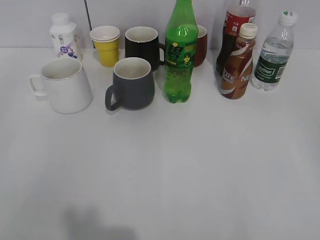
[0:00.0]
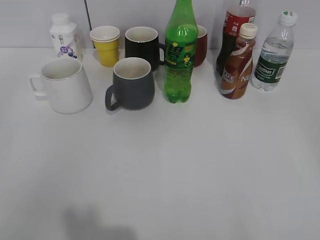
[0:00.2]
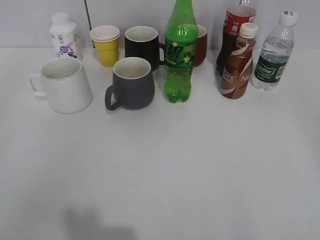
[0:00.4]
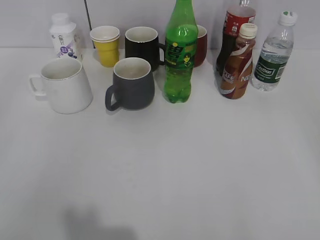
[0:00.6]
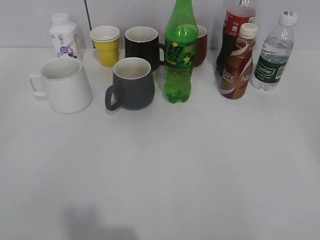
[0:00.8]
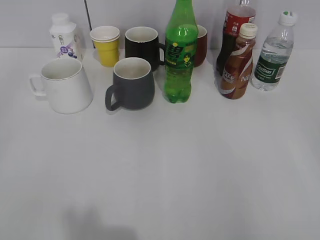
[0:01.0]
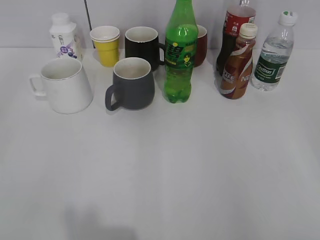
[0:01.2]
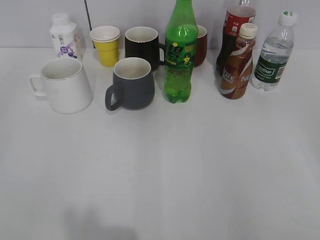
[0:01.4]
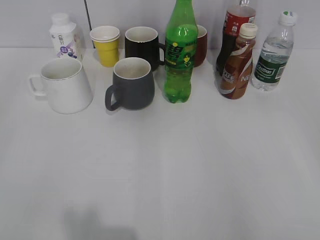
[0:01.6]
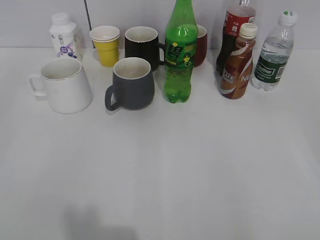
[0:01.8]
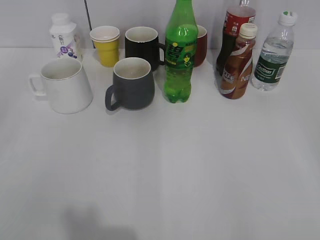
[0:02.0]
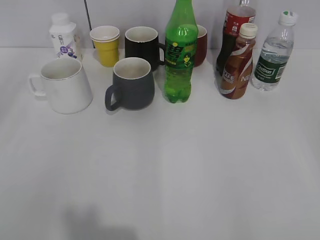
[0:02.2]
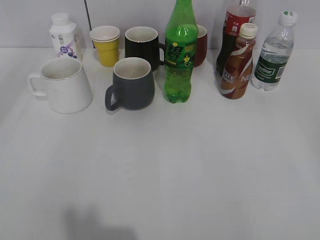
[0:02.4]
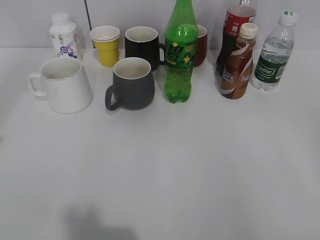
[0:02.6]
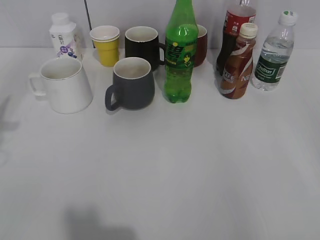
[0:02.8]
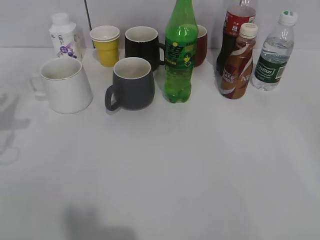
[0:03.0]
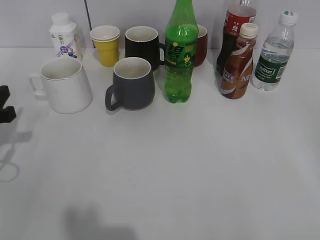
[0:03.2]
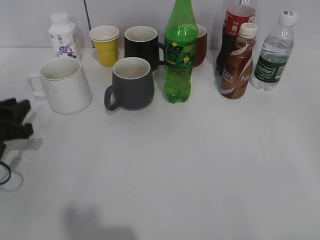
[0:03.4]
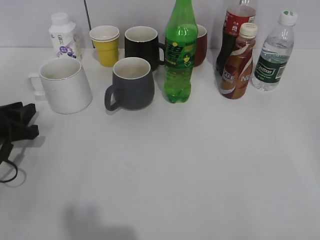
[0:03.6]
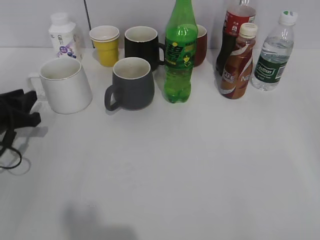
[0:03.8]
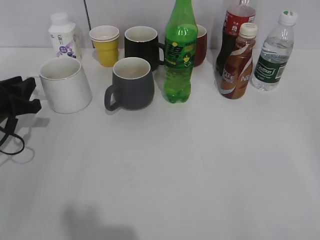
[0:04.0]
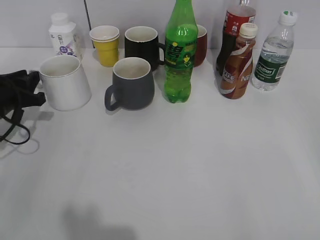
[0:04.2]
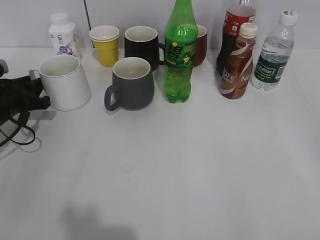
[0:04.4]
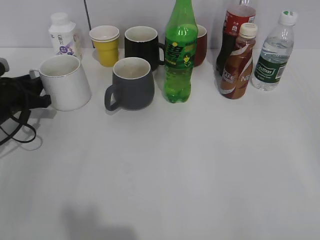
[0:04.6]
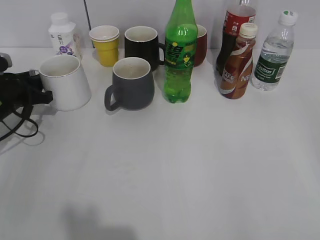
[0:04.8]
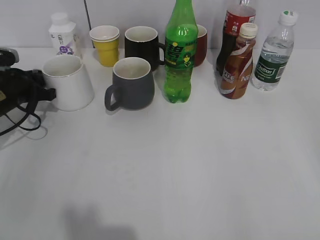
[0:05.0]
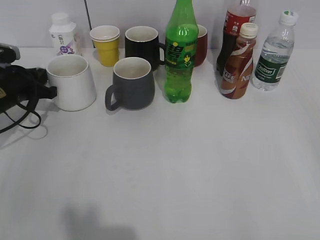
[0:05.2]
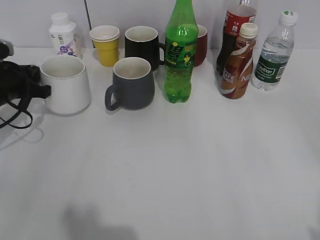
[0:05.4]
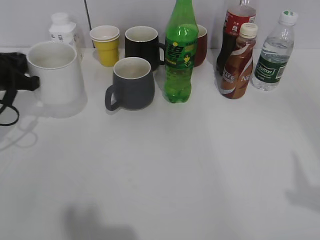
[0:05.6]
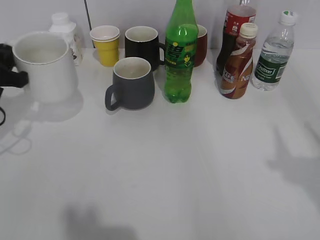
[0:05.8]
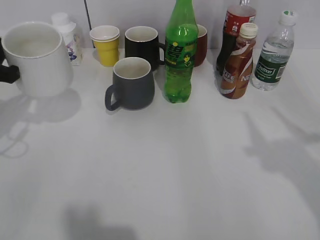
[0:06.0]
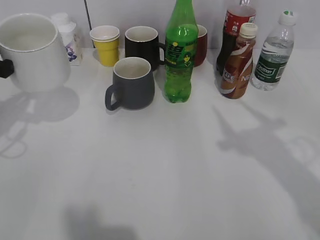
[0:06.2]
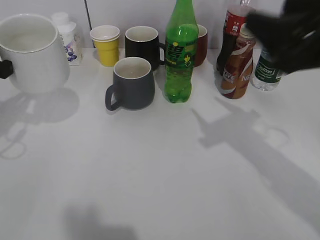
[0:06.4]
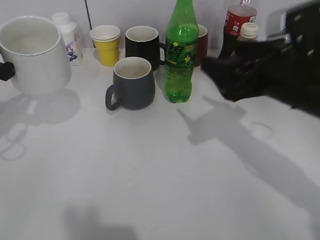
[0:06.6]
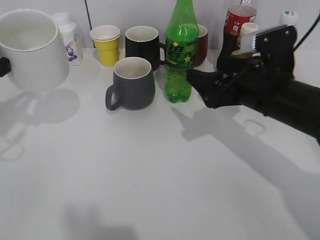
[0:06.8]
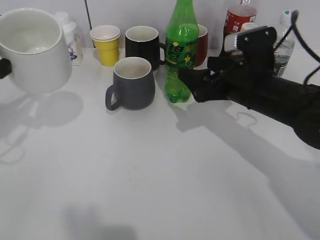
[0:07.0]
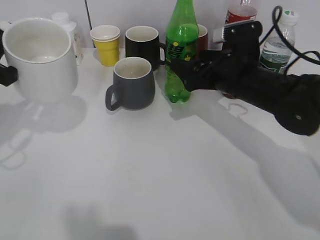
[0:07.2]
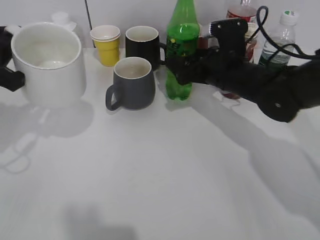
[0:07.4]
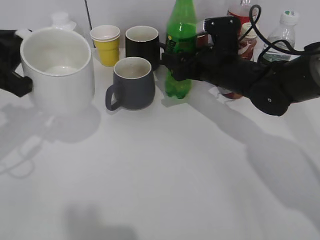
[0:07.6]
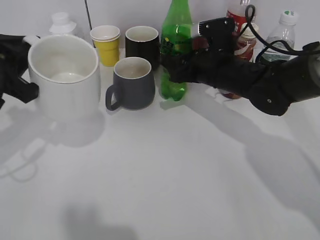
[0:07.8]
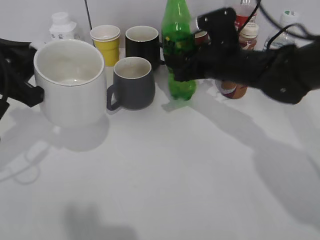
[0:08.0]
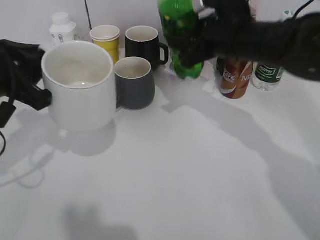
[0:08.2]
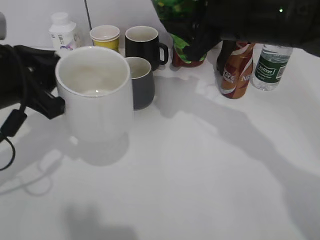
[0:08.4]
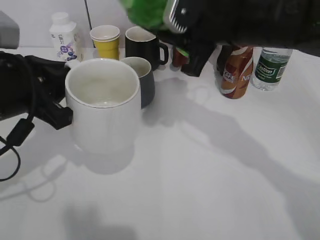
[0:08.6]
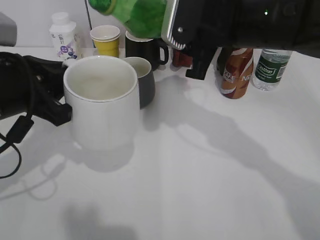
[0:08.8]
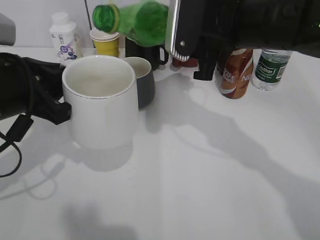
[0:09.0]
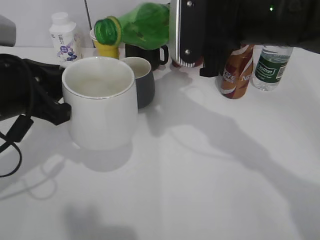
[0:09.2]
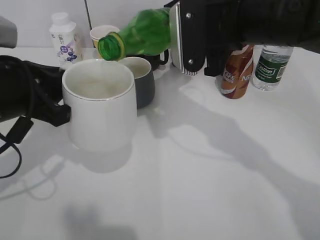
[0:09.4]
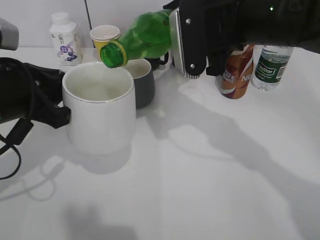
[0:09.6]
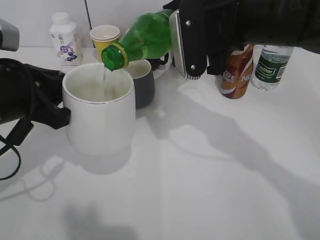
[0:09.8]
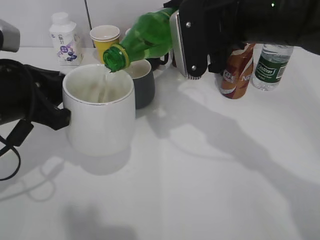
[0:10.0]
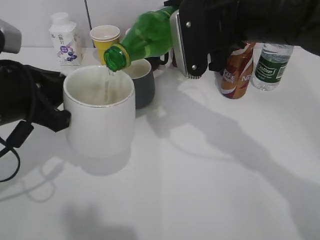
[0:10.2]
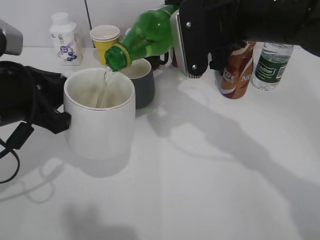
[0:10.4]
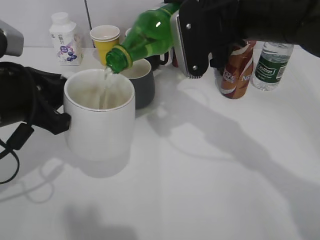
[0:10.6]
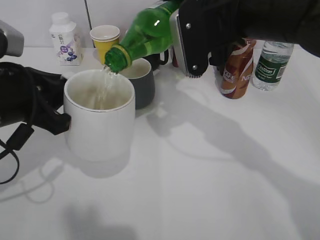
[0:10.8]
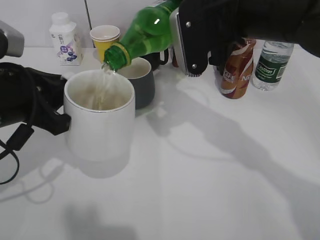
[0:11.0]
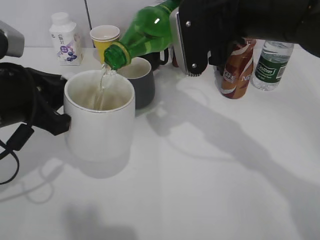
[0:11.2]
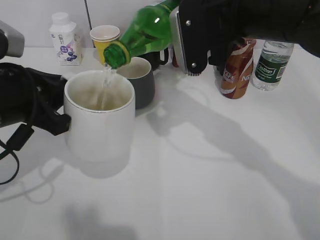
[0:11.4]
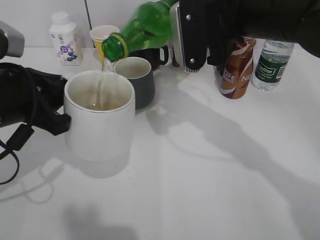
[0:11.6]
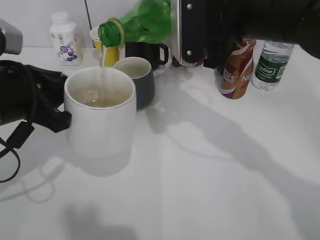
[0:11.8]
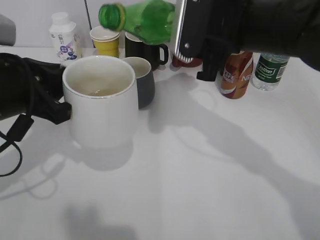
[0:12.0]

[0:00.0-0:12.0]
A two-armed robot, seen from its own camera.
Step, 1.8 to 5.0 s: Grasp the white cup with left gripper.
Step, 5.4 to 6.2 s: Lift the white cup with left gripper.
Step, 6.4 to 7.6 s: Grasp the bottle with sprite with right gripper.
Step, 7.8 to 11.8 s: Pour the sprite from bottle to cup with right gripper.
1.6 to 3.0 s: The left gripper is displaced forward by approximately 25 cm.
3.0 to 4.4 s: The left gripper travels downward and forward by about 15 cm.
4.4 to 6.0 s: The right gripper shifts roughly 15 cm forward and upward, while the left gripper heads upward and backward, covering some 10 cm, and closes its fingers.
6.0 to 7.6 s: The right gripper travels forward, downward and to the left by some 40 cm, and opens its fingers. The left gripper changes place by about 5 cm.
7.6 to 9.0 s: The left gripper shifts roughly 5 cm to the right. The right gripper shifts about 15 cm upward and backward, and closes up.

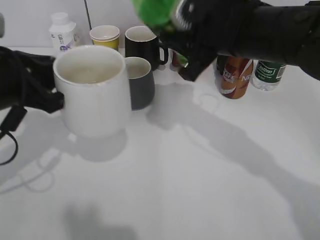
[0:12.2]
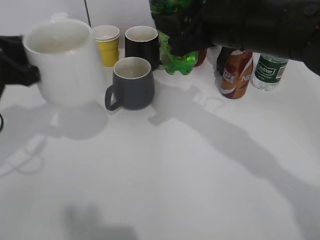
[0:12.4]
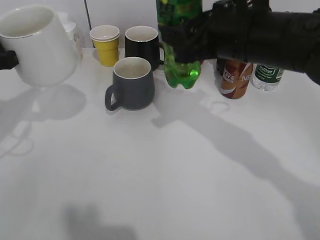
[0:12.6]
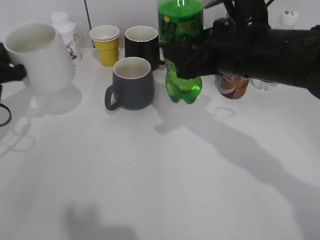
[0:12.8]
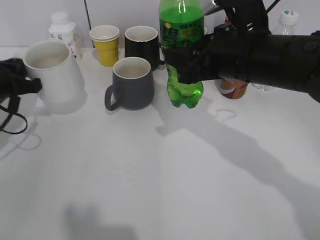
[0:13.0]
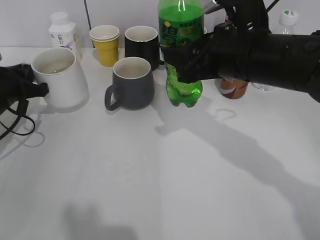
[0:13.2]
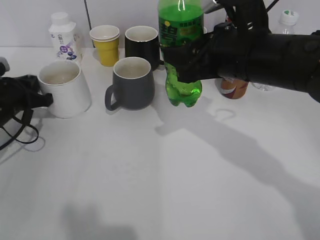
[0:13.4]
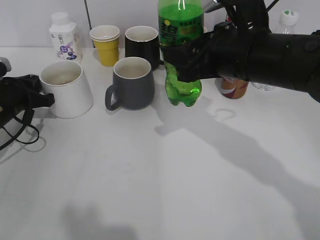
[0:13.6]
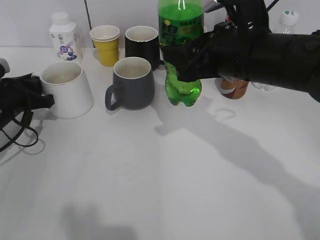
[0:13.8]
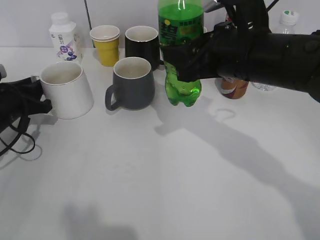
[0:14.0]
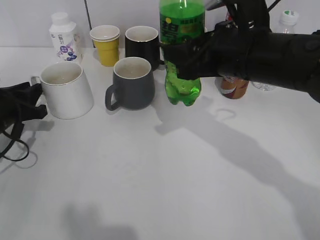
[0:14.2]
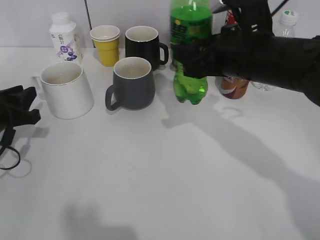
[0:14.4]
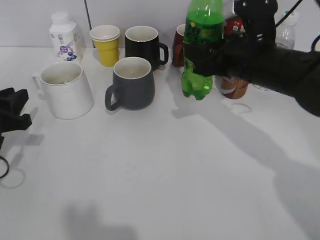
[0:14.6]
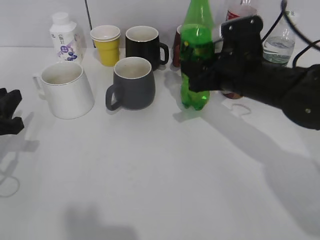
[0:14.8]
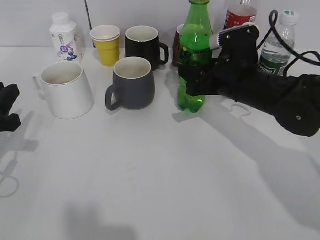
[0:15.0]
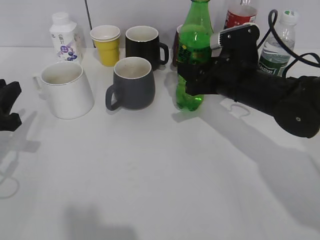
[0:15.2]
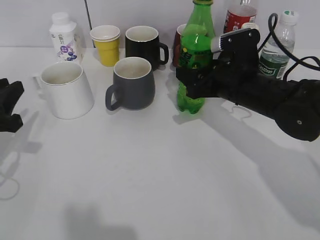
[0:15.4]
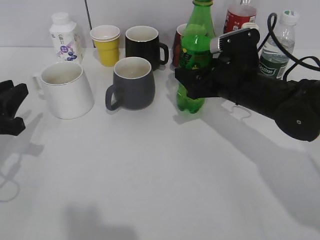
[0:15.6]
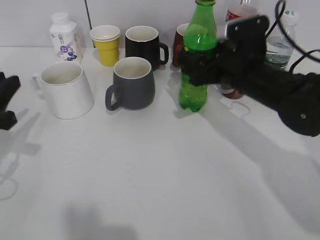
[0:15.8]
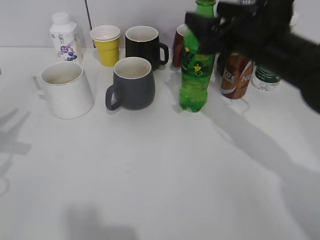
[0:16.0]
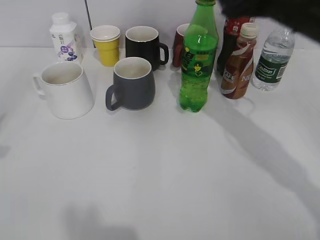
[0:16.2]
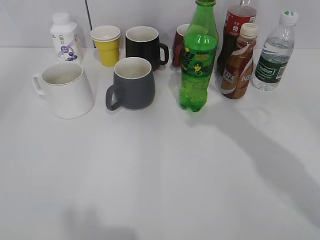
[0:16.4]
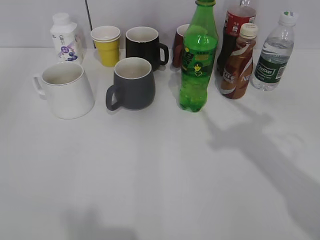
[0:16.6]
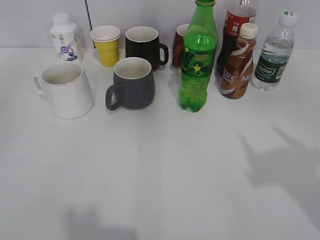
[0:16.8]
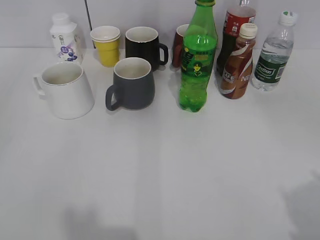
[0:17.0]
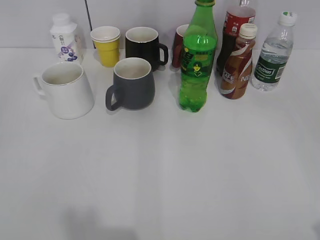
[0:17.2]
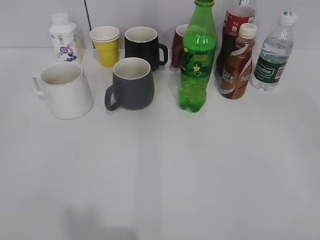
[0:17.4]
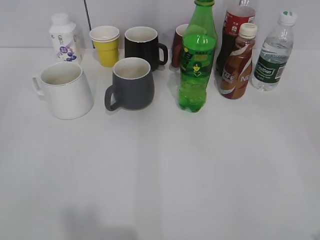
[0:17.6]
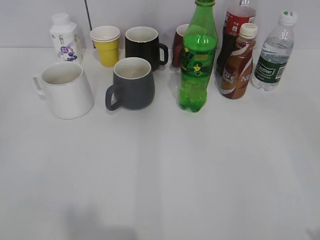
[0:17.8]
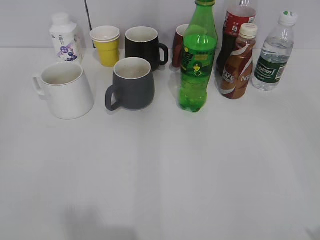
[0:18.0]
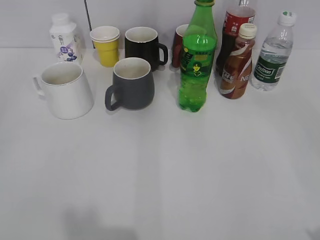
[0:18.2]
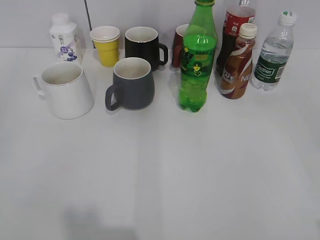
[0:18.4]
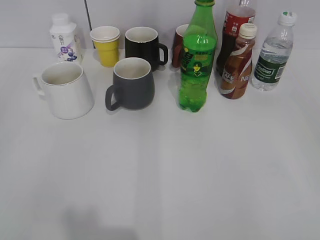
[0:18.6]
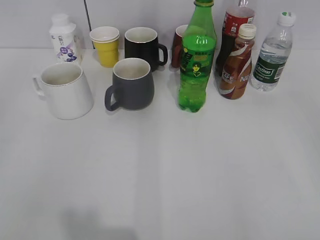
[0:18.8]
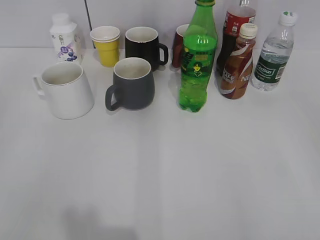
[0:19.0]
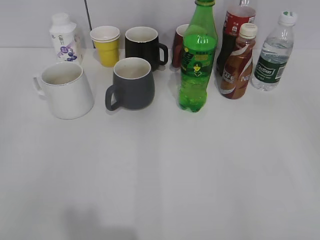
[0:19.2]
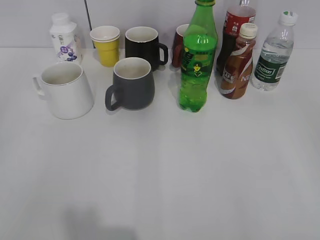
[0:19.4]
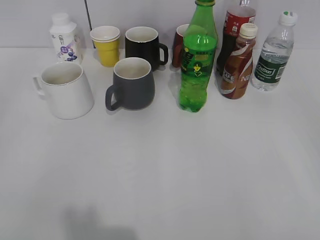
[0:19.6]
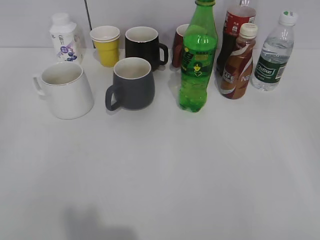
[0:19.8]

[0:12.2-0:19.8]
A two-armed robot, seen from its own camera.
Step, 12.2 to 14.0 s: Place the white cup on the table with left gripper.
Step, 14.2 to 16.0 s: Place the sprite bottle on the table with right gripper.
12.2 to 13.8 s: The left gripper is displaced downward, forward and to the left by roughly 20 cm.
13.8 to 15.2 s: The right gripper moves downward and forward, some 10 cm. Meanwhile the left gripper travels backward by some 10 cm.
15.2 to 16.8 s: The right gripper travels backward, upward and to the right by approximately 35 cm, and opens, while the left gripper moves backward and upward, approximately 25 cm, and opens.
16.8 to 18.2 s: The right gripper shifts approximately 15 cm downward, backward and to the right.

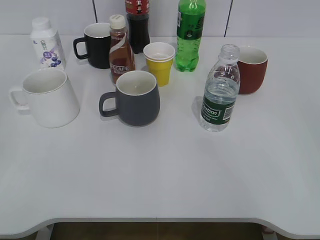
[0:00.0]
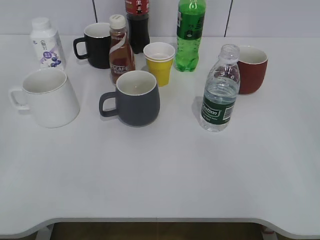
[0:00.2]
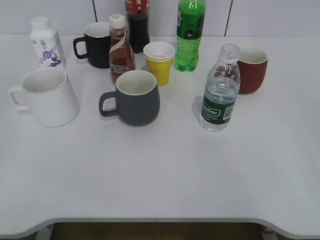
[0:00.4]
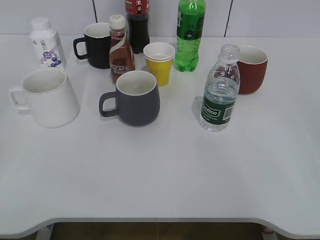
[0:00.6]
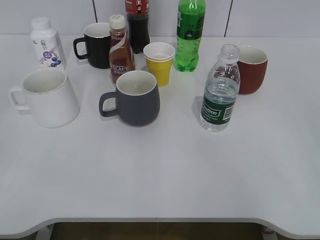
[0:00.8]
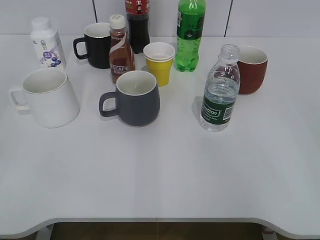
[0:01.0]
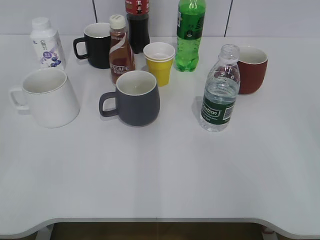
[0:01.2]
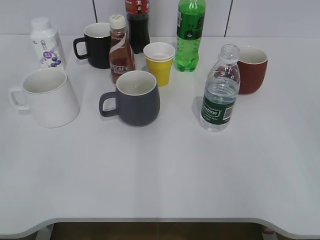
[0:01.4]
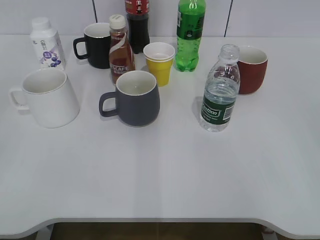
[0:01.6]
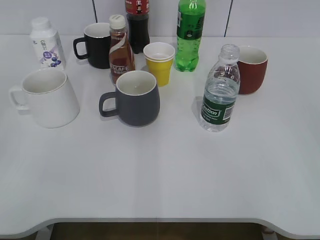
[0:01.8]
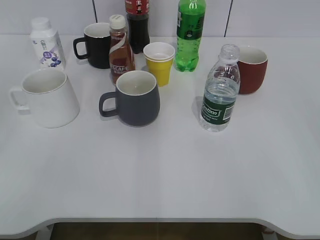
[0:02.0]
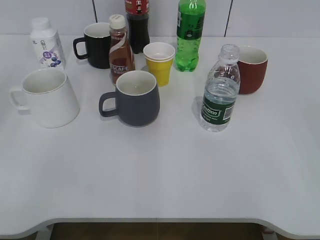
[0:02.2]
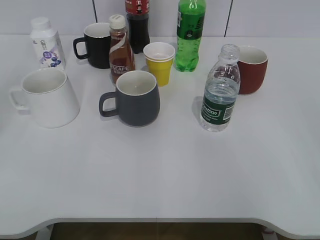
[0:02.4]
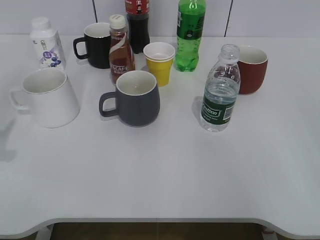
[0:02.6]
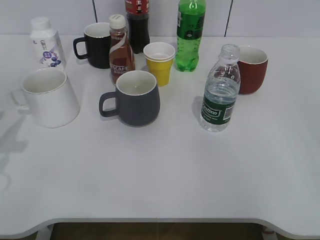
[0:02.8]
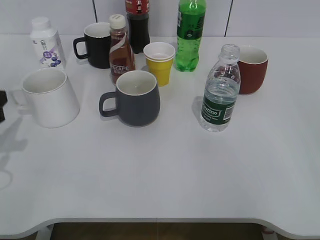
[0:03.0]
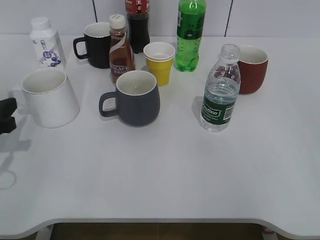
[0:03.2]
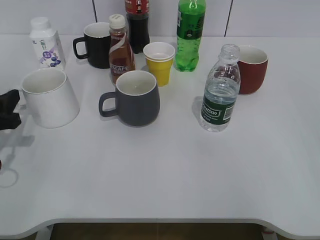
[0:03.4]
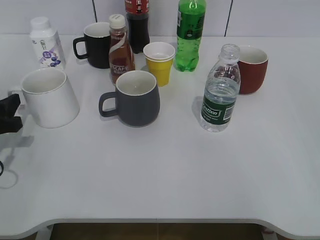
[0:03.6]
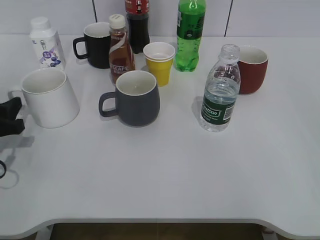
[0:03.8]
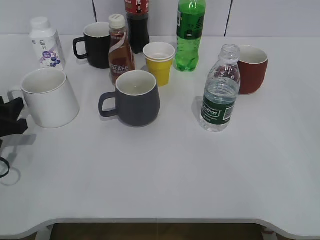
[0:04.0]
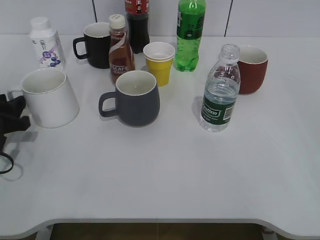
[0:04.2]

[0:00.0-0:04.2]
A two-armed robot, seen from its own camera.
1.4 to 2.8 s: The left gripper shifts about 20 cm forward.
2.8 to 4.2 s: The left gripper is displaced downward and forward by approximately 10 cm.
